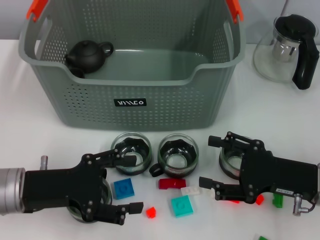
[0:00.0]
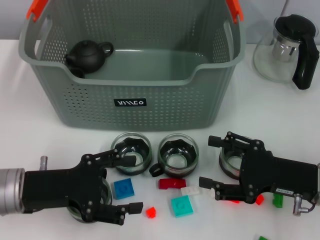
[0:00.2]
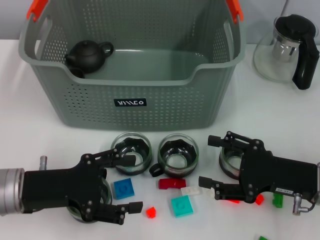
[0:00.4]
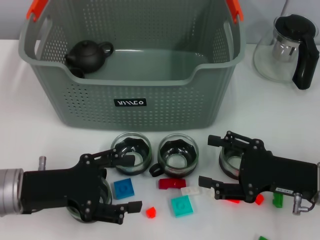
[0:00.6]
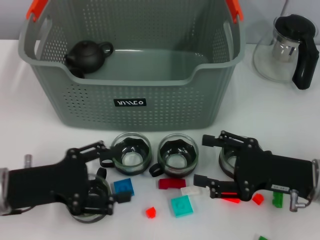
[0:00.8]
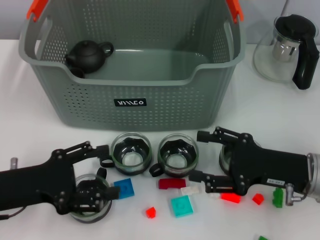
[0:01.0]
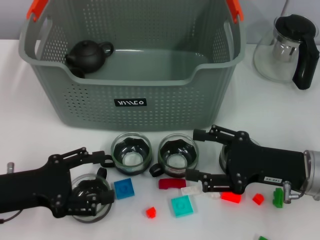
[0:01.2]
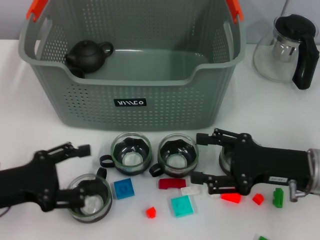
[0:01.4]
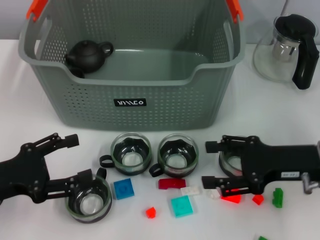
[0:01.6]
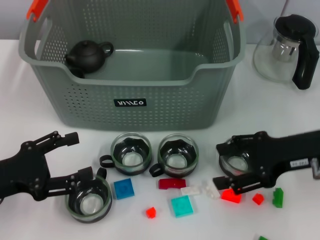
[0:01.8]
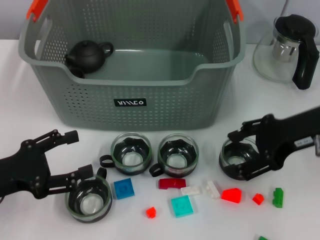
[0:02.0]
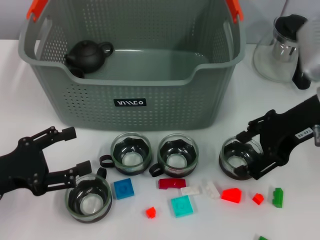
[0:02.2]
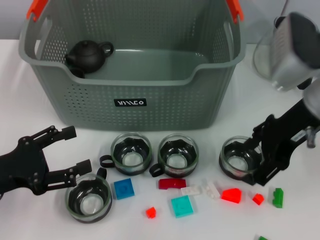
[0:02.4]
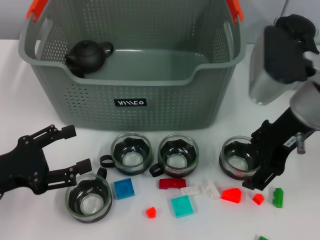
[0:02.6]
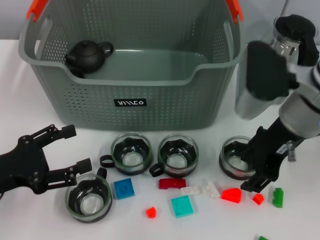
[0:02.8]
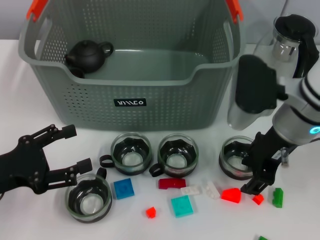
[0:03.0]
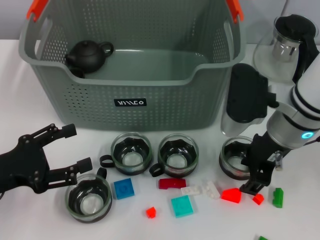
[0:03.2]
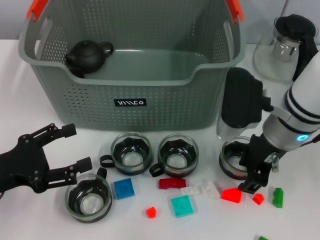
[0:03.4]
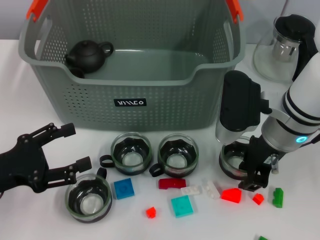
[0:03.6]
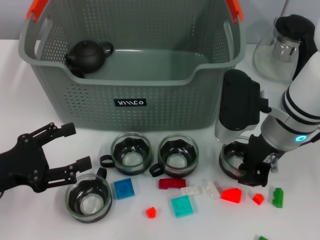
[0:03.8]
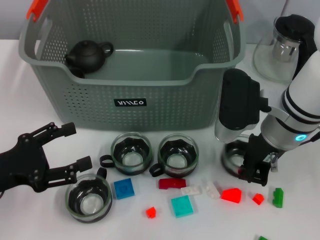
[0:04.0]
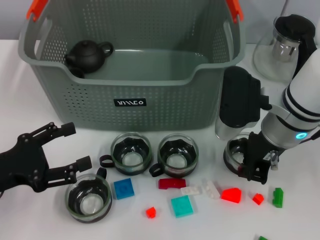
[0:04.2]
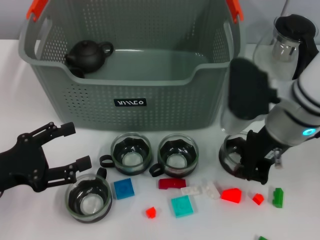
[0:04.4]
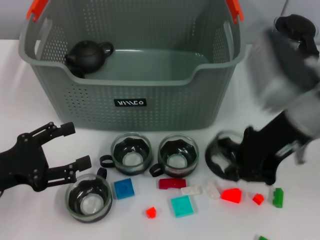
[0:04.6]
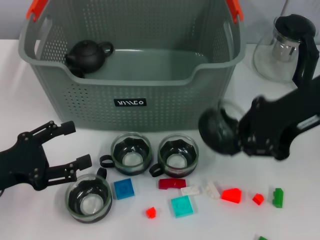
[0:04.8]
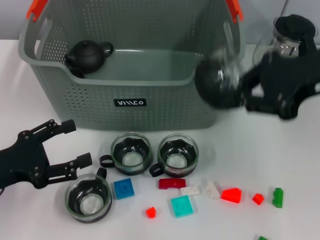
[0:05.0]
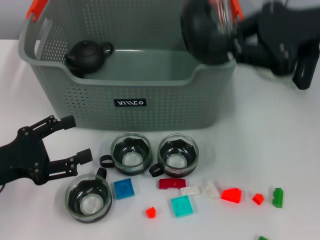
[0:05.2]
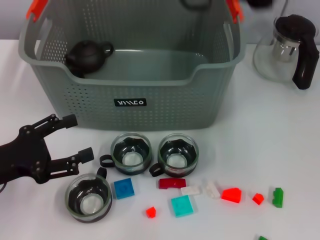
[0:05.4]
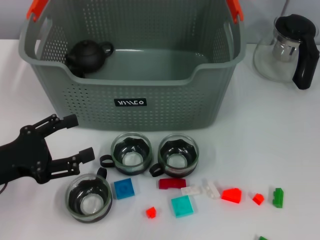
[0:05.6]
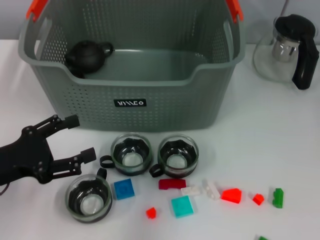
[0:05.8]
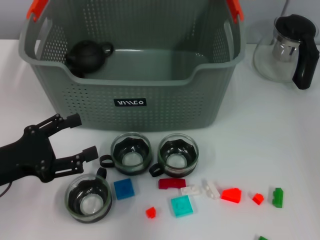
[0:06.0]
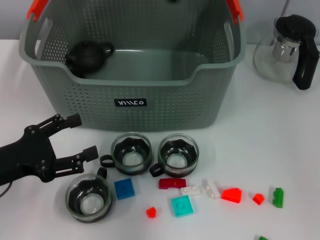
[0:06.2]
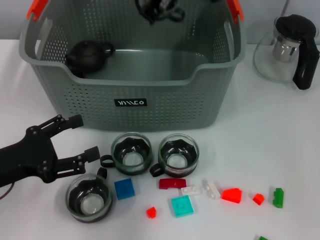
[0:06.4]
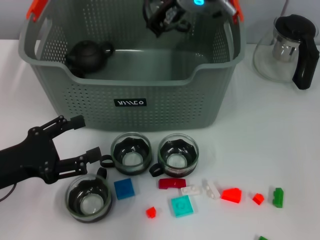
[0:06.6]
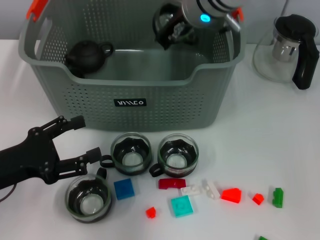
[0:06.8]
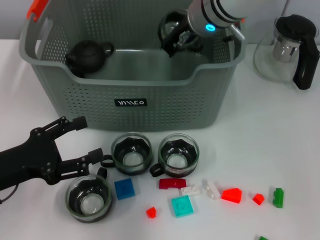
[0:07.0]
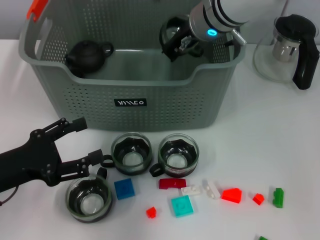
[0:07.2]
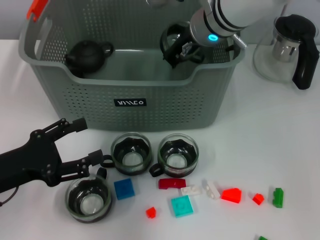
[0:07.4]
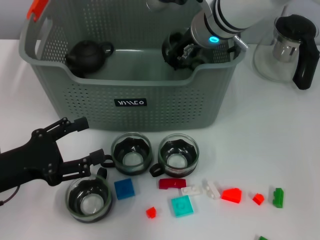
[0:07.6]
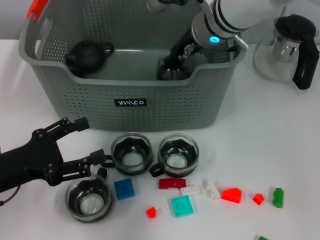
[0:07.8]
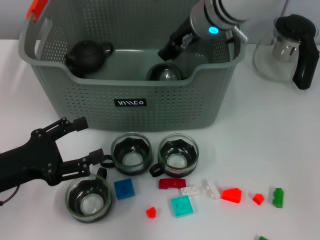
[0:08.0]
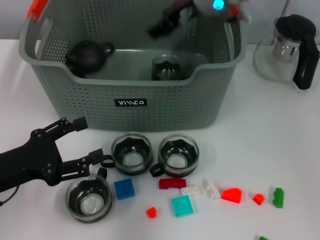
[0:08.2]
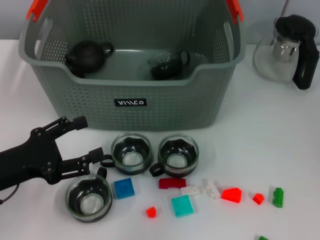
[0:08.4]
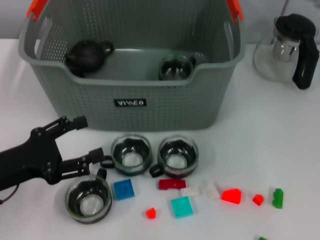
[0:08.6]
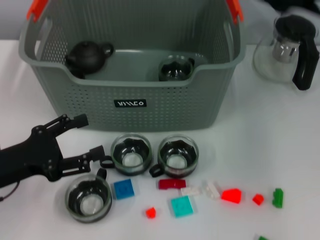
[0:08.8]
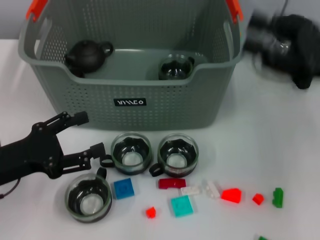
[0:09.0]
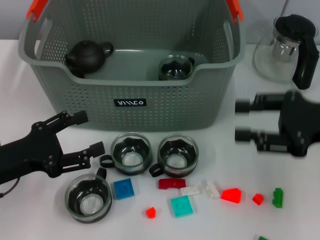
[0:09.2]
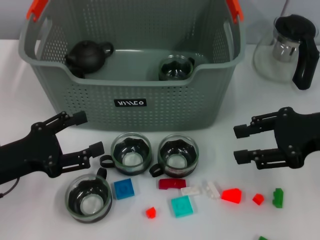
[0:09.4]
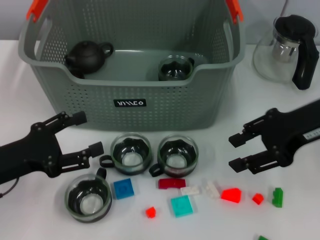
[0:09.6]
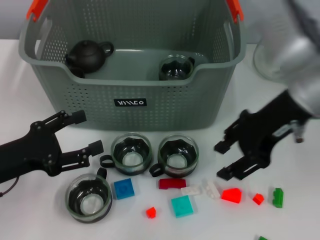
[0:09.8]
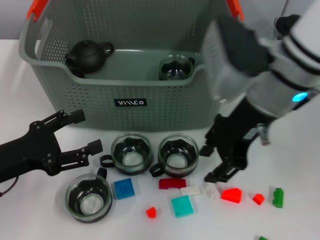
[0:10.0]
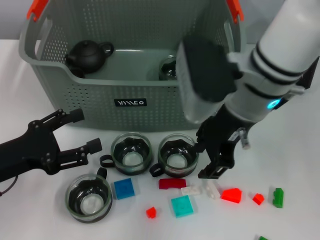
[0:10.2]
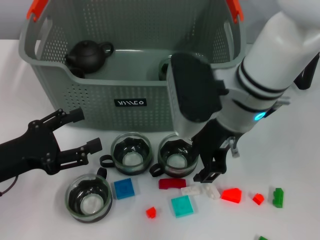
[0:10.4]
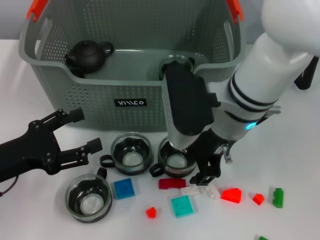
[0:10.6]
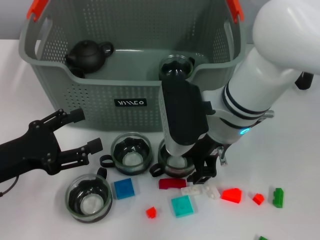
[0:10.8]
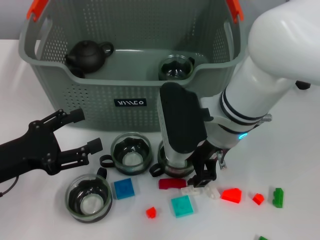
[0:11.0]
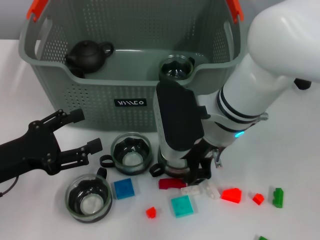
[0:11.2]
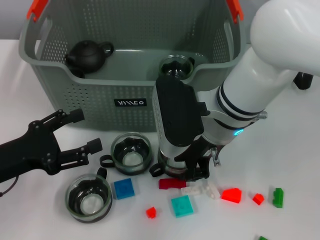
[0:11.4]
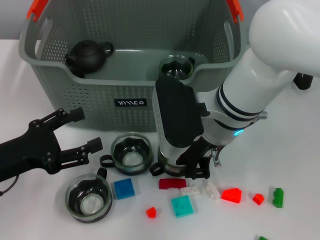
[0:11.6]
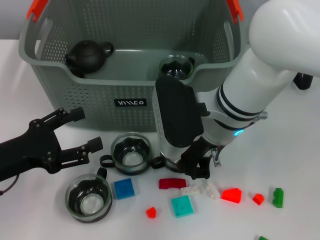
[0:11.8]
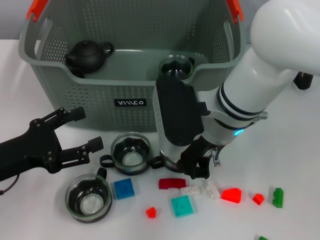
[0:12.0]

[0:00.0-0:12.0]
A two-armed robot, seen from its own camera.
Task of the whole recording: pick up the teacup on the table and place it into the storage bin, pick up the block on the table and place it into the storage bin.
Step, 0:00.0 to 0:04.0: Grasp the cup with right gripper.
Step, 0:04.4 to 0:08.2: Place the cup in the storage box with right gripper.
Step, 0:08.4 to 0:11.8: Grasp the cup with right gripper.
0:00.0 to 0:01.6: The left gripper travels to the left by approximately 5 cm.
0:01.6 to 0:03.0: The right gripper shifts some 10 cm to the left, upward and forward.
0:03.0 to 0:04.4: The right gripper closes its fingers.
0:04.4 to 0:06.0: The right gripper goes roughly 20 cm upward and forward.
0:06.0 to 0:07.6: The right gripper heads downward, covering some 15 cm.
0:07.6 to 0:09.0: The right gripper travels to the right and backward by approximately 25 cm, and opens its fingers.
0:09.0 to 0:10.4: The right gripper moves to the left, some 20 cm.
0:10.4 to 0:12.0: The right gripper closes.

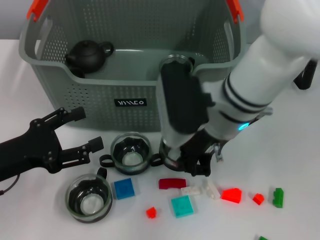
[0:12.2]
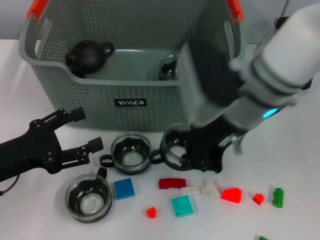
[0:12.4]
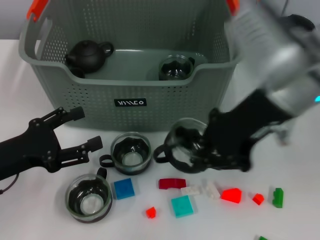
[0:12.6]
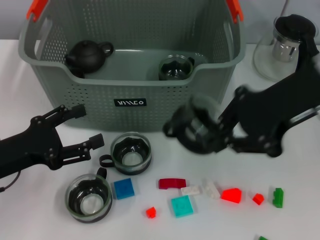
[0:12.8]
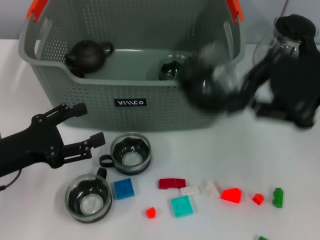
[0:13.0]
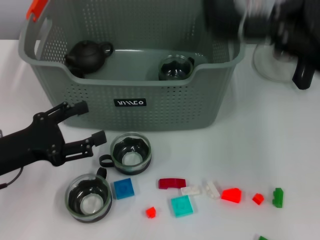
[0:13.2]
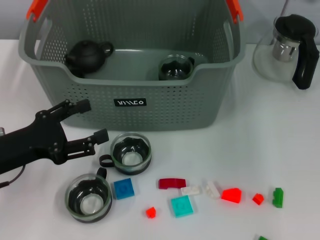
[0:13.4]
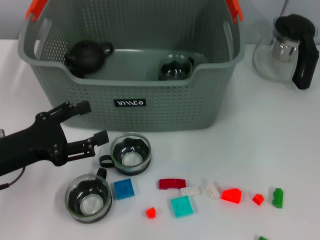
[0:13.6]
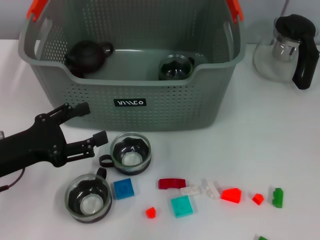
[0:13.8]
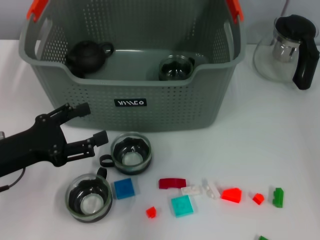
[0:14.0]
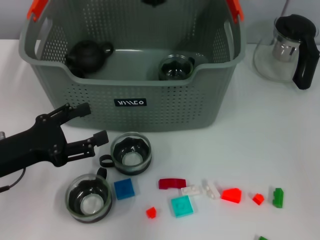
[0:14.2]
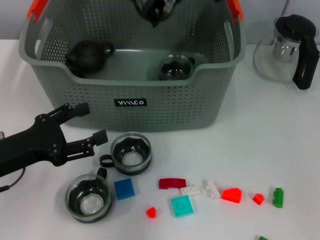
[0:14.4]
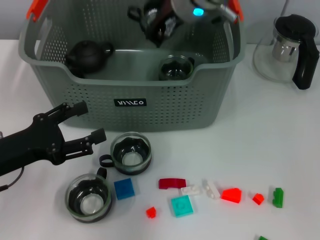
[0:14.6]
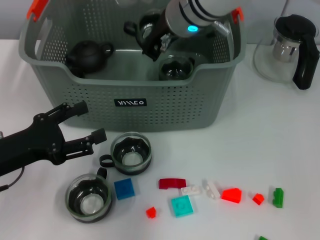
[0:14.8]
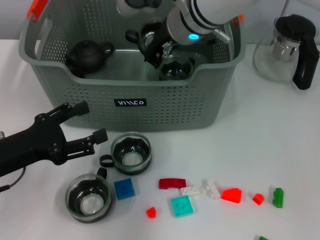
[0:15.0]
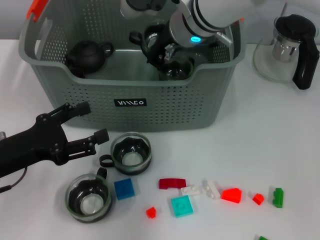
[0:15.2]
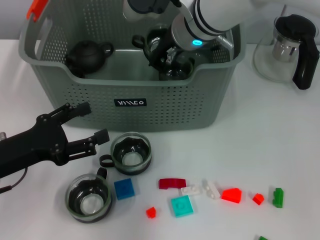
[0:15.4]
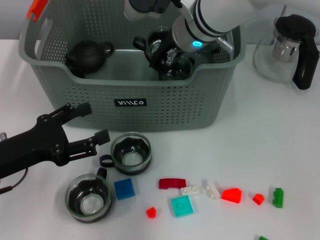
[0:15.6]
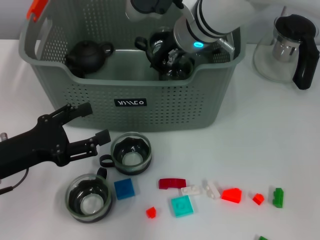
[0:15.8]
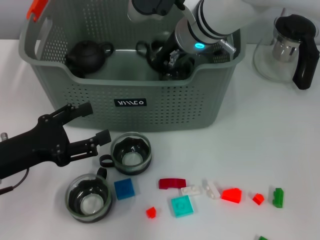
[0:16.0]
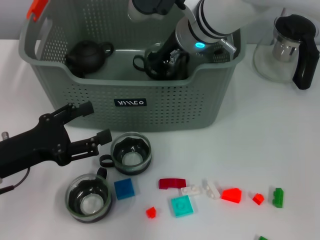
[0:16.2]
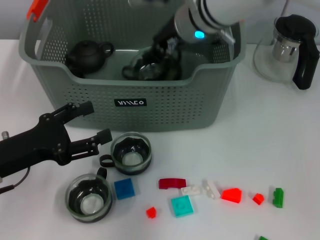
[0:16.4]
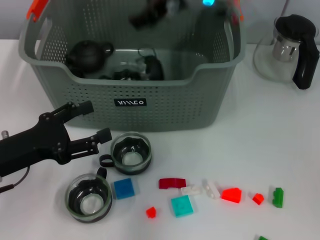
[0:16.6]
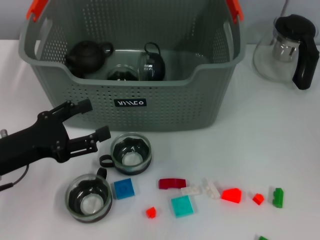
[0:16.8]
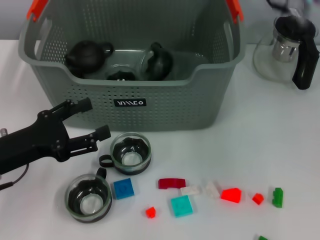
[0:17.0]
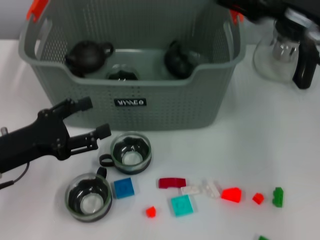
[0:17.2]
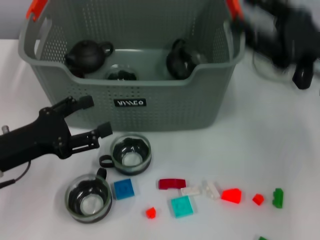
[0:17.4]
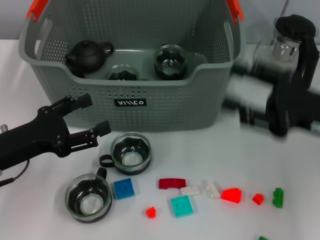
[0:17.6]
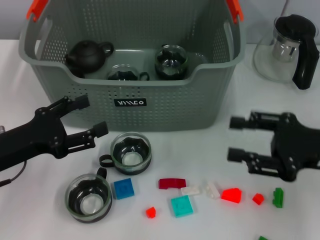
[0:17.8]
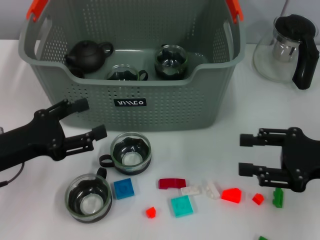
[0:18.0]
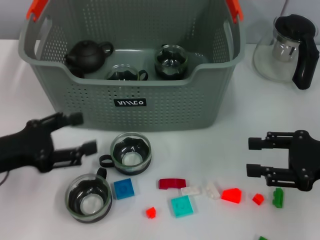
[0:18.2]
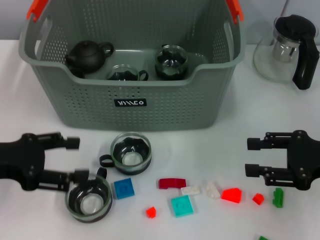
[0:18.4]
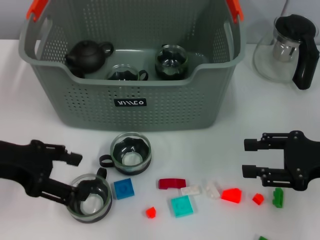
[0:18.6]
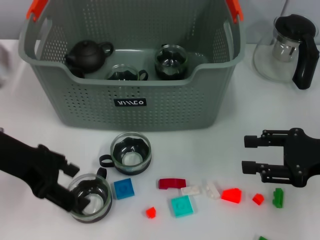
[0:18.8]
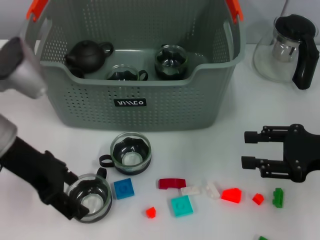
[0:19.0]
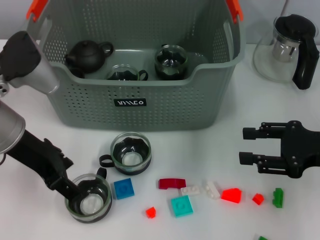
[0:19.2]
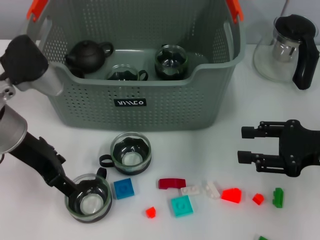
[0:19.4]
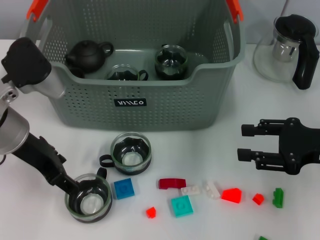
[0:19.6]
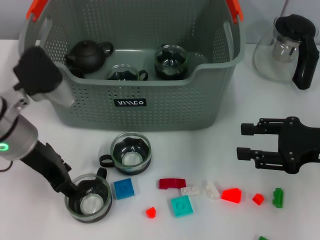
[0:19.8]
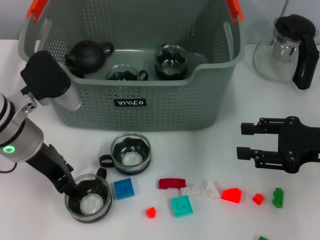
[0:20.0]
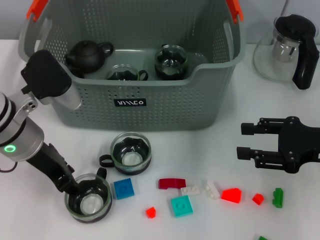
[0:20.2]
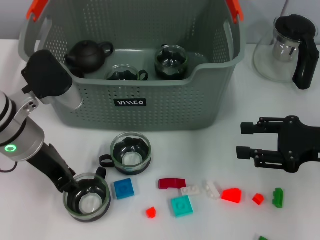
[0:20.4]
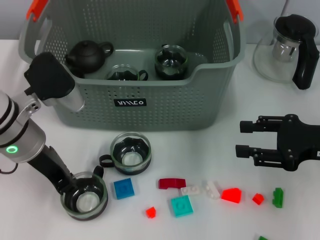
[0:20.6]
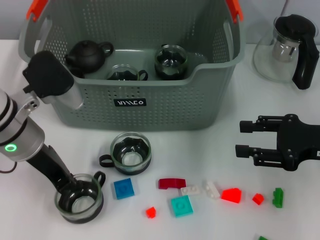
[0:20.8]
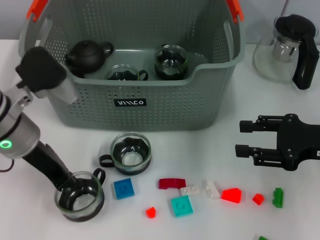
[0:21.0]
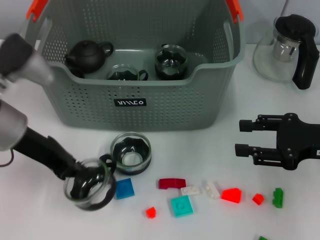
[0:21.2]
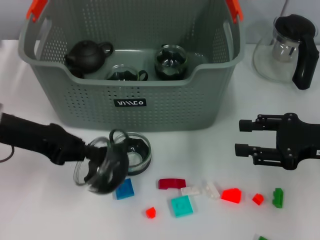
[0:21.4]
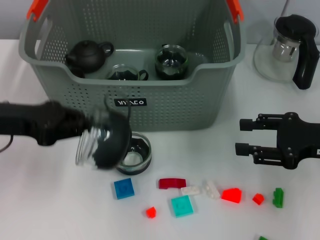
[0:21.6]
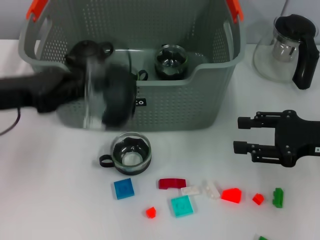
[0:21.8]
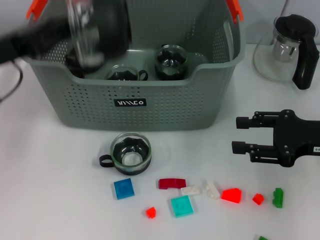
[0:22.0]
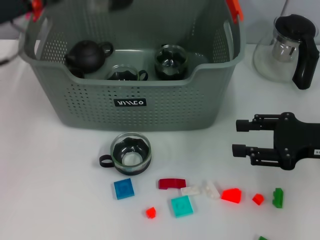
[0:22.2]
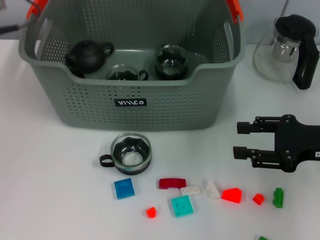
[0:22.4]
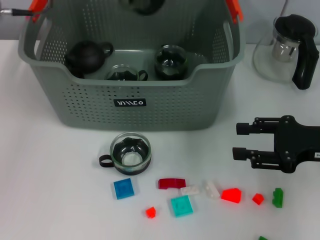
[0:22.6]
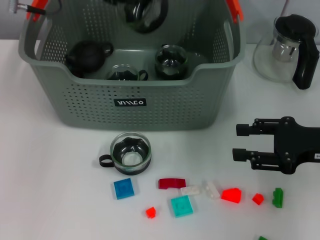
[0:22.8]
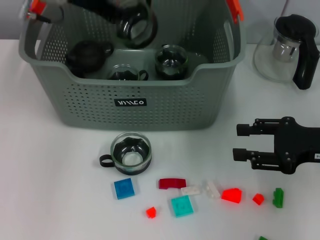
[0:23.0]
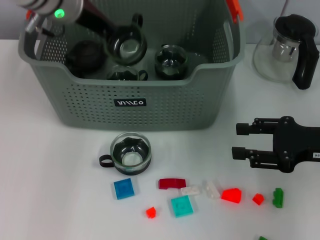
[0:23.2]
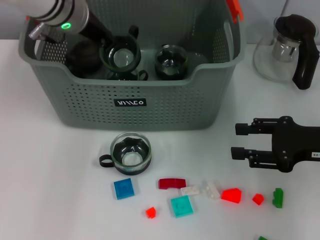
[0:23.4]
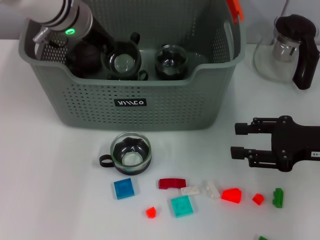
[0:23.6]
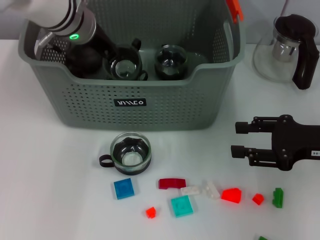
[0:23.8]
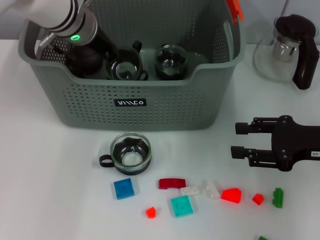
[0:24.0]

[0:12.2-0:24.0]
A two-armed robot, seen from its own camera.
Task of the whole recording: pick up the teacup on the table and place it into the storage bin, pick up the block on the table and place it into the storage bin.
Step, 0:12.2 to 0:16.6: Place the cup in the storage box with right gripper.
Step, 0:16.8 to 0:20.6: Grasp the cup with left gripper.
0:12.2 to 0:13.6: The right gripper is displaced upward and to the right by about 20 cm.
0:13.6 to 0:15.2: The right gripper goes approximately 20 cm to the left and downward.
0:15.2 to 0:16.6: The right gripper travels upward by approximately 5 cm, and opens.
0:16.6 to 0:18.2: The right gripper is displaced to the right, backward and downward by about 35 cm.
0:18.2 to 0:19.6: The left gripper moves to the right, forward and upward, roughly 10 cm.
0:19.6 to 0:21.0: The left gripper closes up.
0:21.0 to 0:22.6: The left gripper travels upward and forward by roughly 15 cm.
0:22.6 to 0:24.0: The left gripper heads to the right and downward, covering about 10 cm.
